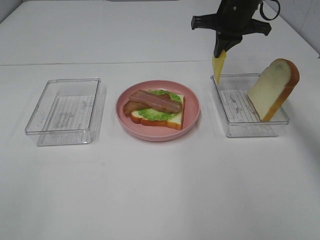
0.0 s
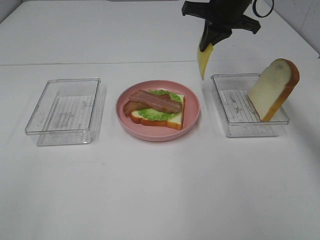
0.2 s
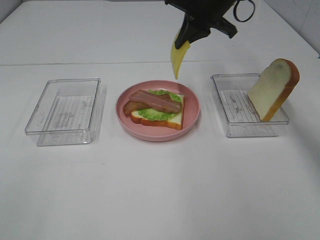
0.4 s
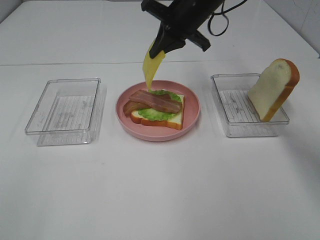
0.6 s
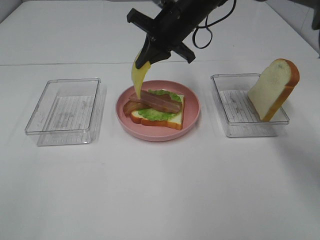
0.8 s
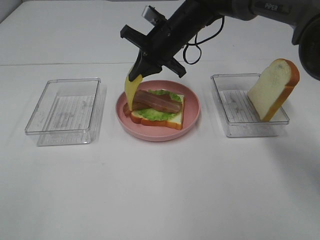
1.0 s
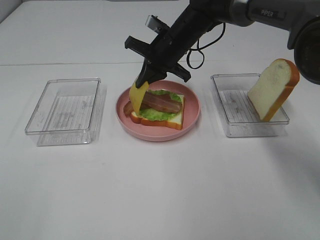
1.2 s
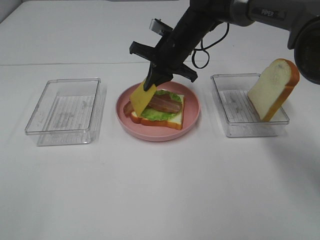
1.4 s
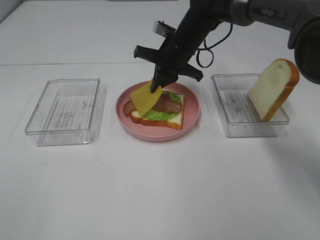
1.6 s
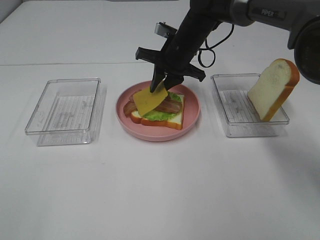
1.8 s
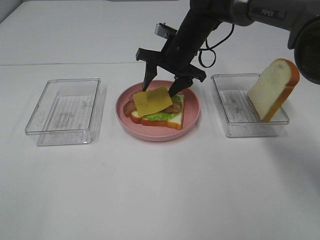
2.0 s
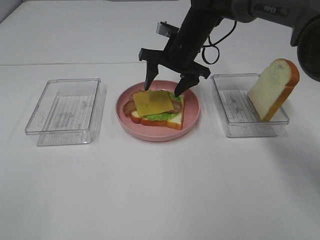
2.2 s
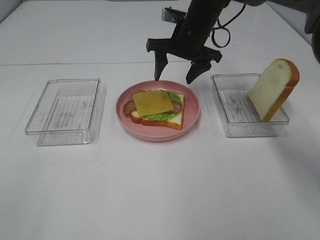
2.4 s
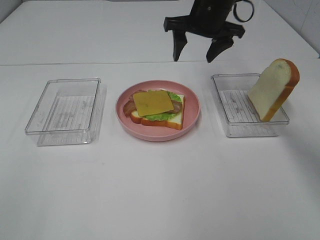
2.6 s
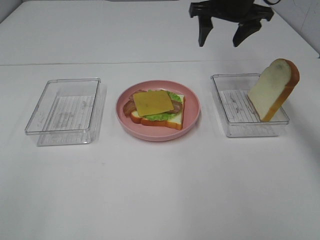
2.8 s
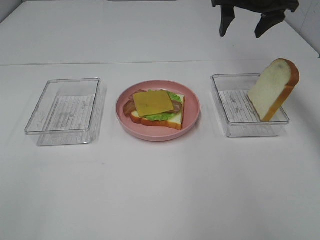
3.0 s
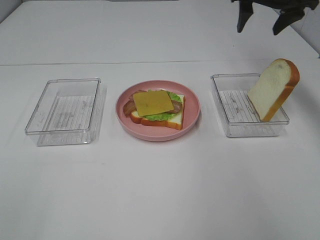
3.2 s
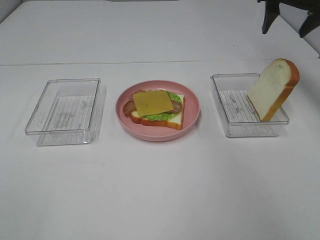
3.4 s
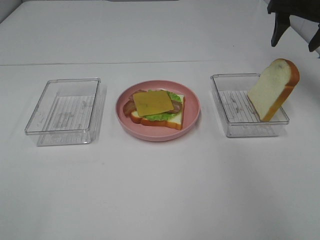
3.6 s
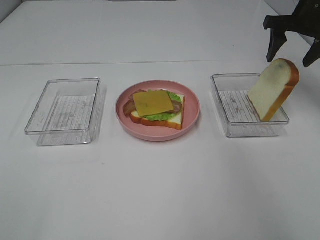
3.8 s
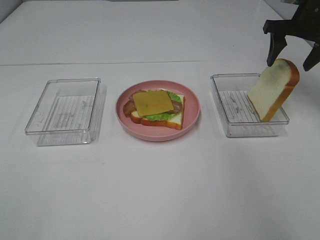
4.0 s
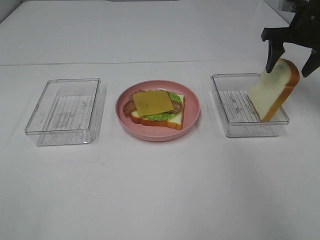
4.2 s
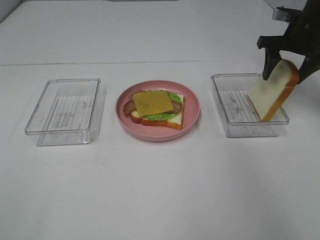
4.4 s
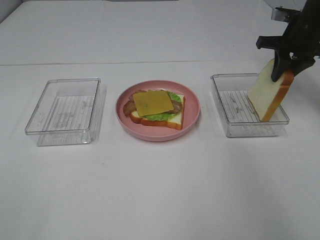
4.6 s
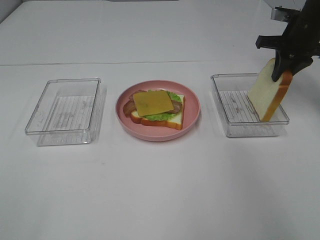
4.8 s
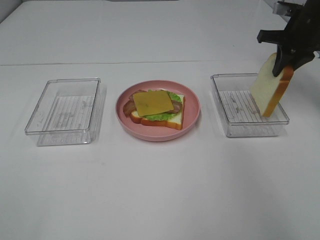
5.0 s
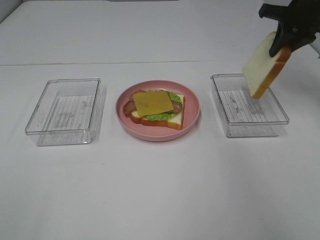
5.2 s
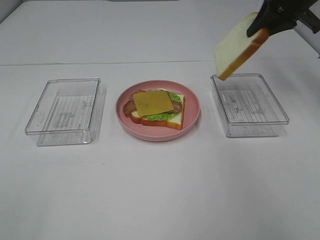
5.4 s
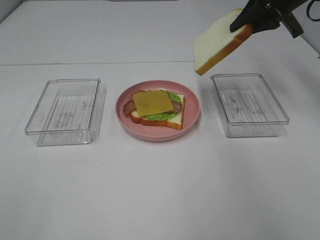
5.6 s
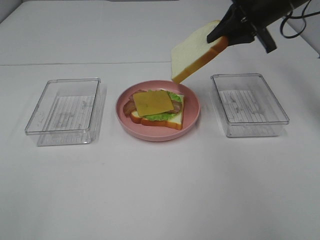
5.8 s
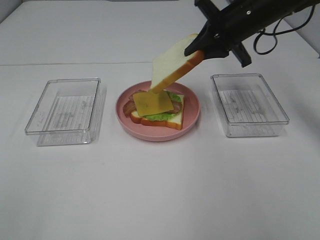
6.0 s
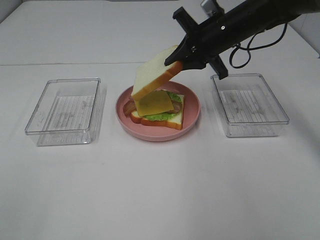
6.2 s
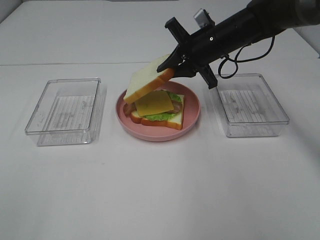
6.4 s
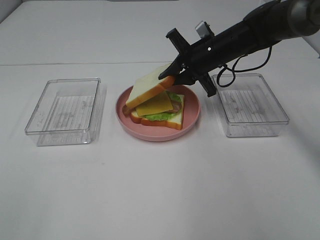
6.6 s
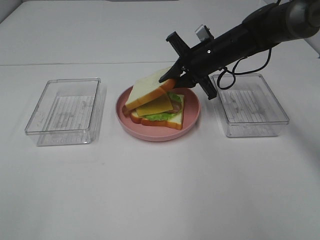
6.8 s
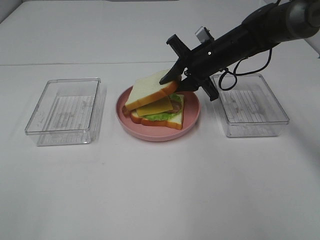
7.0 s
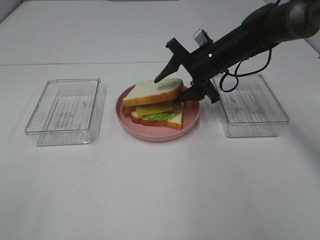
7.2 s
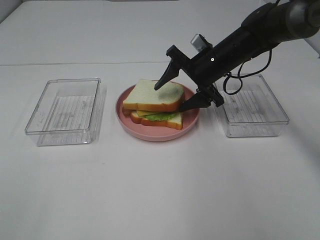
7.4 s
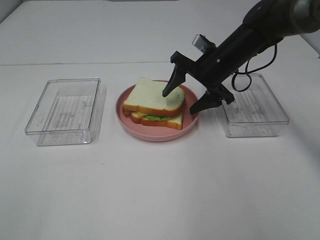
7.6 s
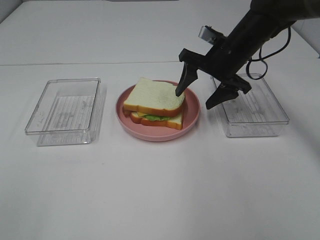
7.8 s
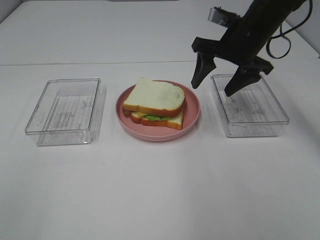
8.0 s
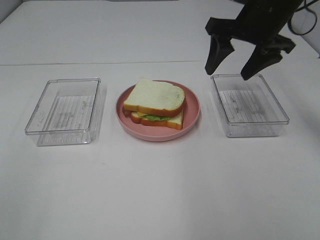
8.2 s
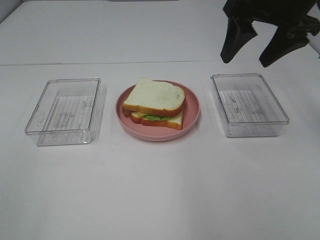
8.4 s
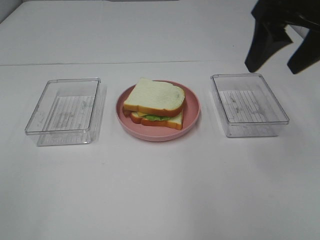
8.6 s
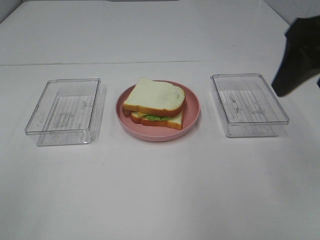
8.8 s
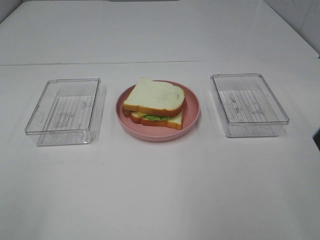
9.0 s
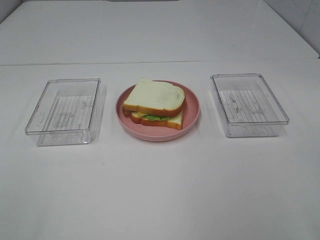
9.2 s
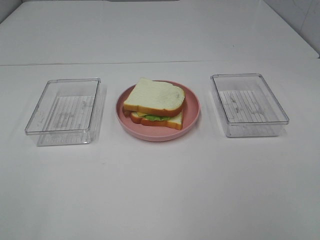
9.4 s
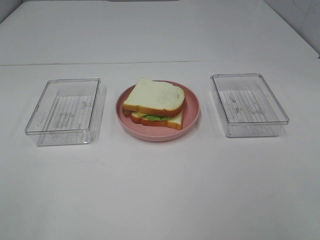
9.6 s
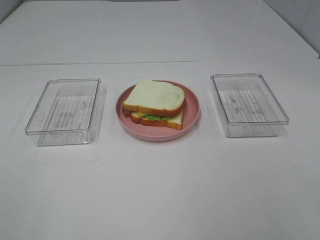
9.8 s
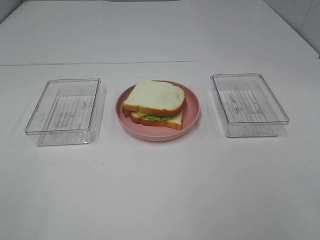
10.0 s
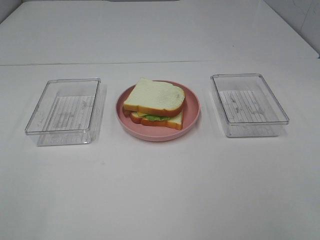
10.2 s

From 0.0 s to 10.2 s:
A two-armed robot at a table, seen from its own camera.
Task of the whole recording: Make sandwiches.
Step, from 0.0 s to 2.2 s: Right hand:place the cheese slice on top of the bacon.
Step, from 2.4 s to 5.0 s: Right hand:grab the bread slice.
Step, from 5.2 s to 7.8 s: Right hand:place the bread slice on the cheese slice.
From 0.0 s to 1.4 s: The right gripper moves to the left and downward, approximately 15 cm.
From 1.4 s to 3.0 s: The right gripper shifts approximately 20 cm to the right and upward, and opens.
From 3.0 s to 4.4 s: The right gripper moves to the right and downward, roughly 15 cm.
From 4.4 s to 5.8 s: The right gripper shifts roughly 10 cm to the left, and closes its fingers.
From 5.8 s to 7.2 s: The right gripper heads downward and to the left, covering approximately 15 cm, and opens up.
From 7.2 s to 8.8 s: The right gripper shifts roughly 30 cm backward, upward and to the right.
From 8.8 s to 10.2 s: The right gripper goes roughly 25 cm backward.

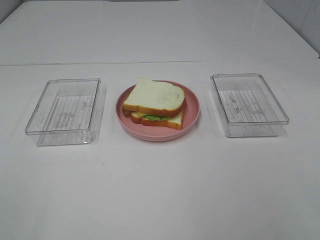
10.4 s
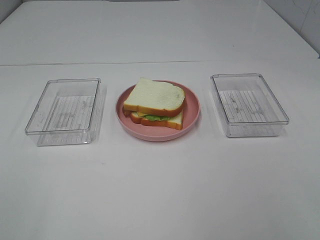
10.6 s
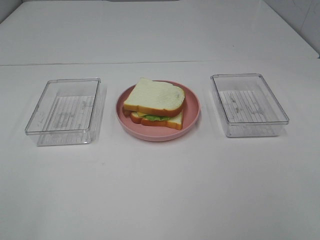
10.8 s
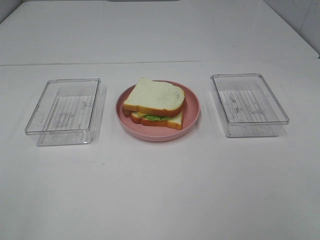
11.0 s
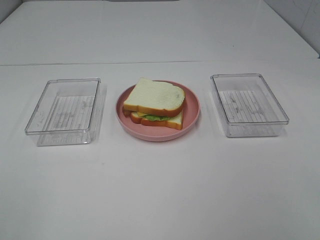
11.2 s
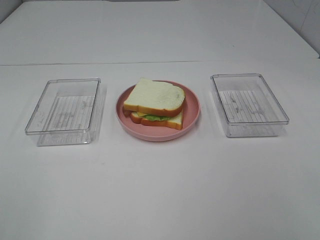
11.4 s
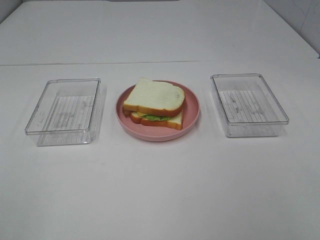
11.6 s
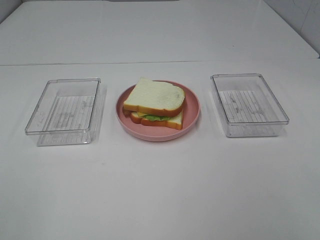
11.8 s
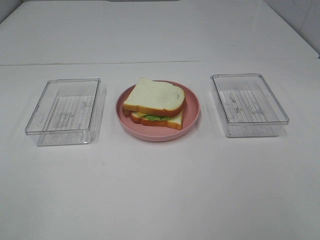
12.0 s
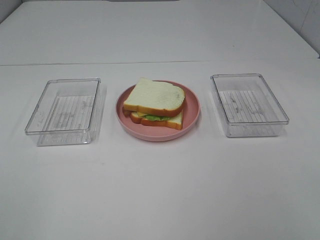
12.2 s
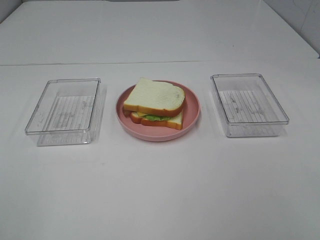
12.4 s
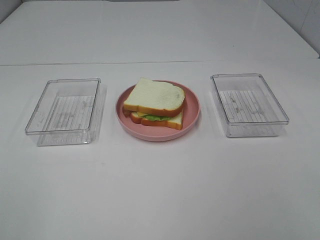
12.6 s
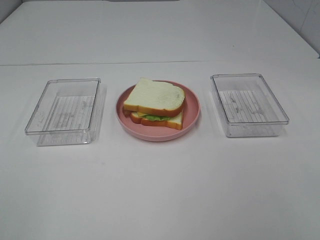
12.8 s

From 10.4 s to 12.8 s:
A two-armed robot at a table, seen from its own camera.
Task of the whole recording: Make sandwiches.
From 11.6 s to 12.8 s: Both grippers stay about where they are.

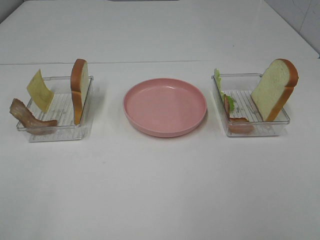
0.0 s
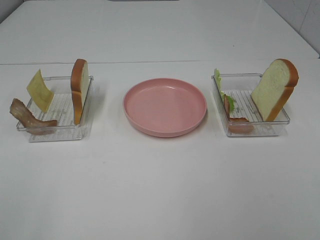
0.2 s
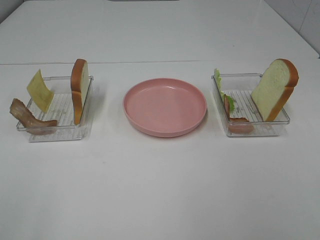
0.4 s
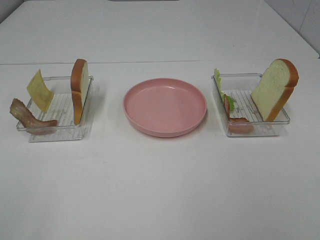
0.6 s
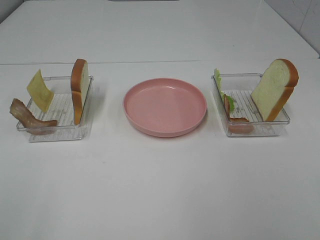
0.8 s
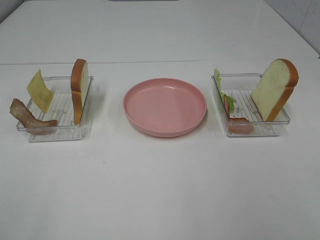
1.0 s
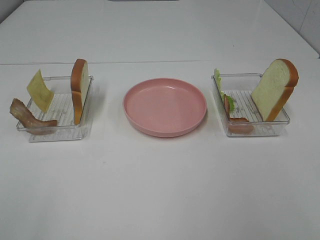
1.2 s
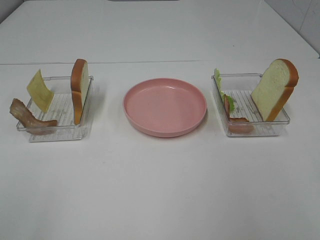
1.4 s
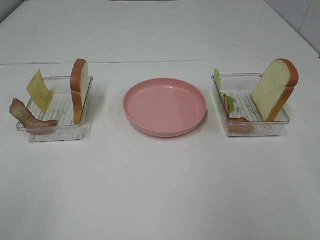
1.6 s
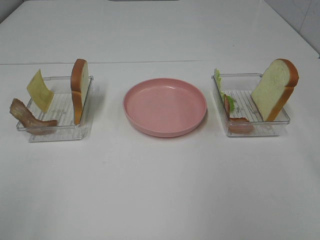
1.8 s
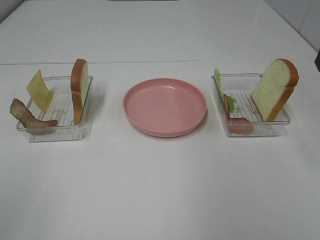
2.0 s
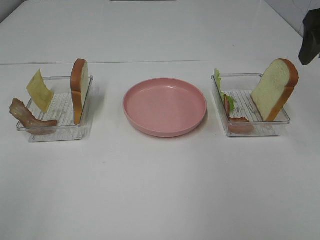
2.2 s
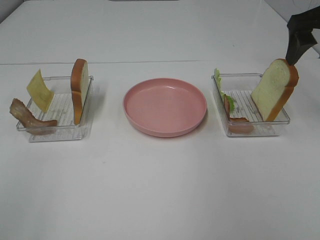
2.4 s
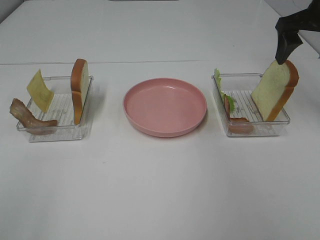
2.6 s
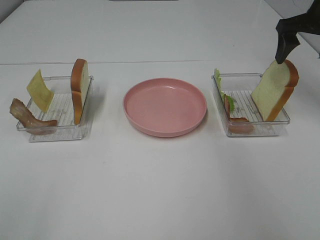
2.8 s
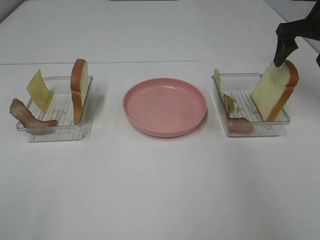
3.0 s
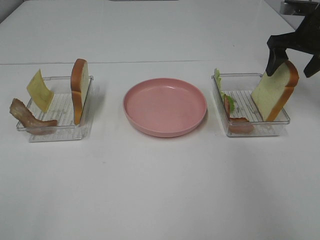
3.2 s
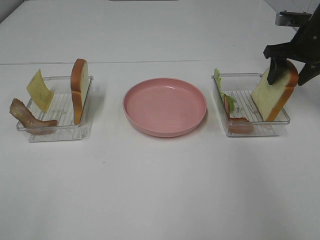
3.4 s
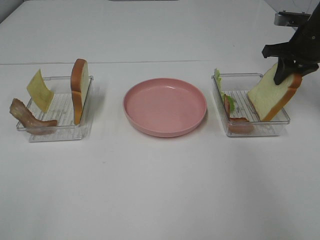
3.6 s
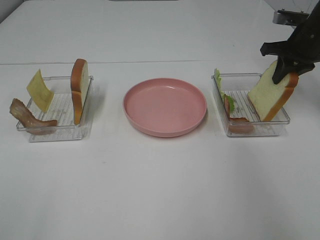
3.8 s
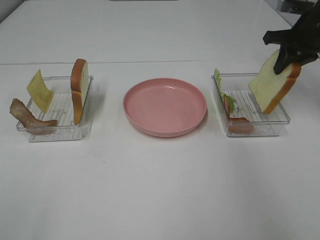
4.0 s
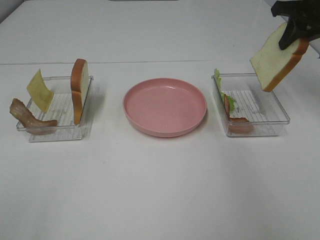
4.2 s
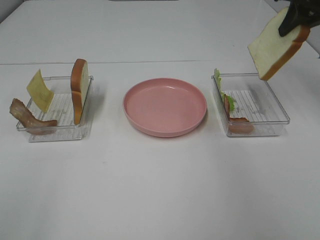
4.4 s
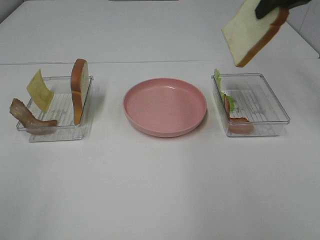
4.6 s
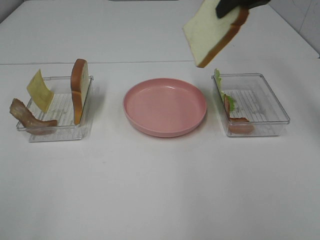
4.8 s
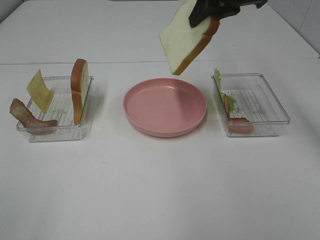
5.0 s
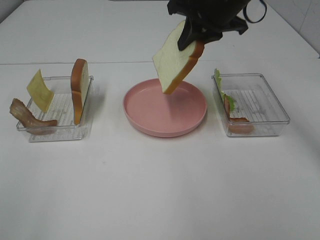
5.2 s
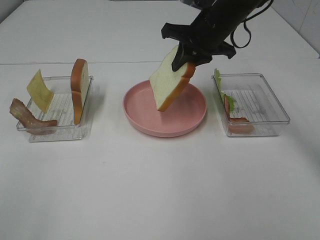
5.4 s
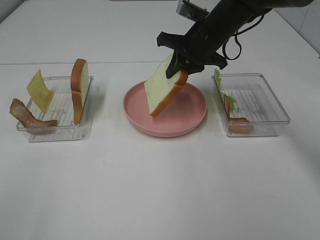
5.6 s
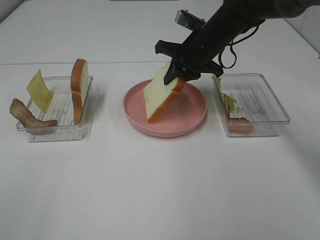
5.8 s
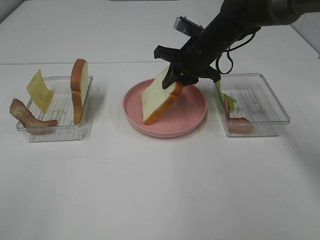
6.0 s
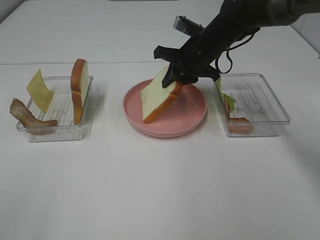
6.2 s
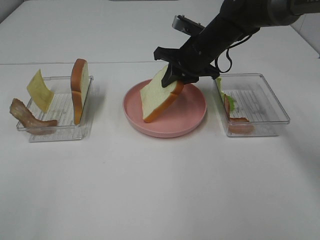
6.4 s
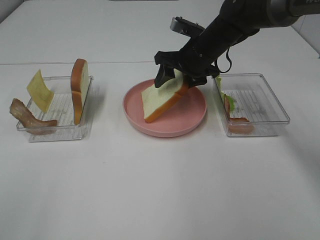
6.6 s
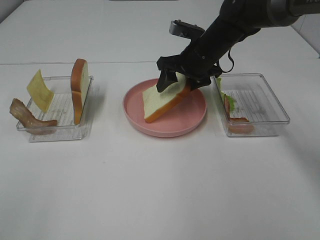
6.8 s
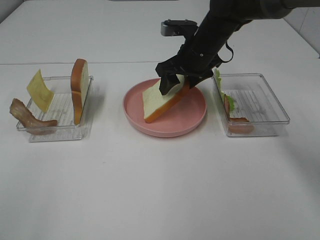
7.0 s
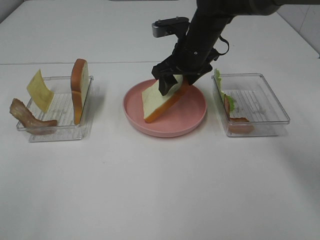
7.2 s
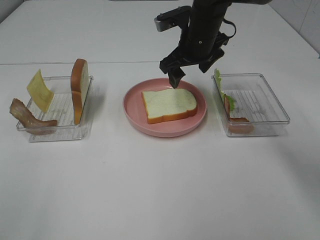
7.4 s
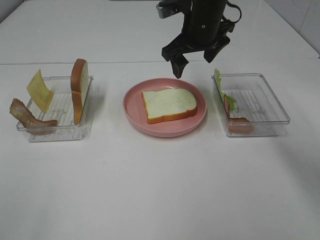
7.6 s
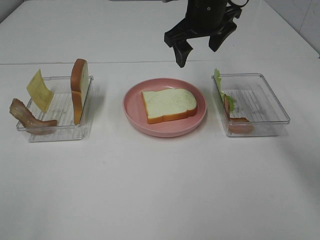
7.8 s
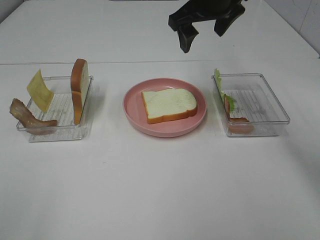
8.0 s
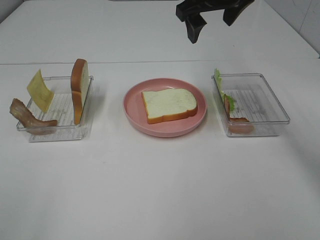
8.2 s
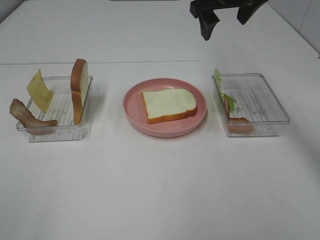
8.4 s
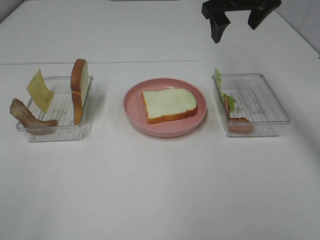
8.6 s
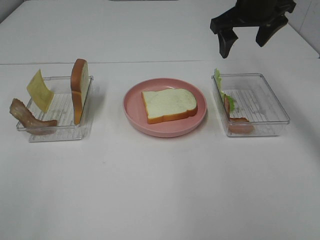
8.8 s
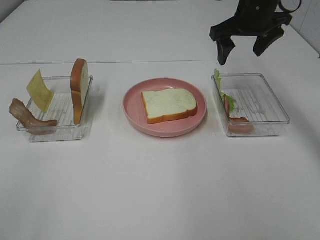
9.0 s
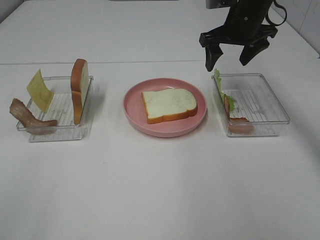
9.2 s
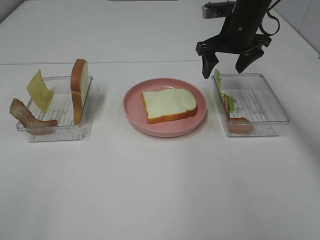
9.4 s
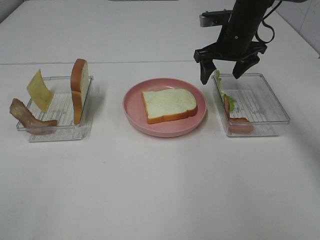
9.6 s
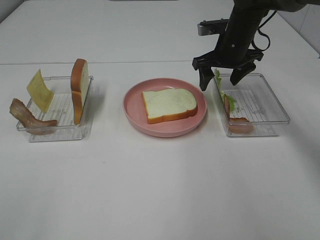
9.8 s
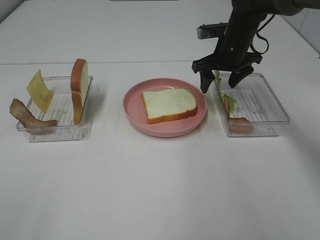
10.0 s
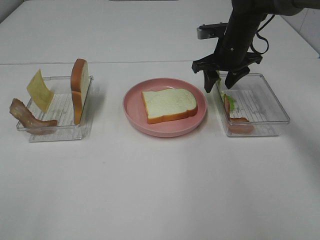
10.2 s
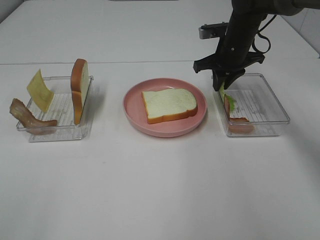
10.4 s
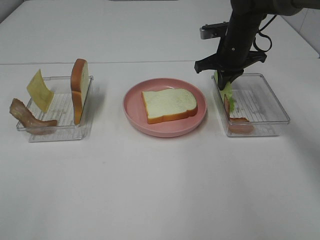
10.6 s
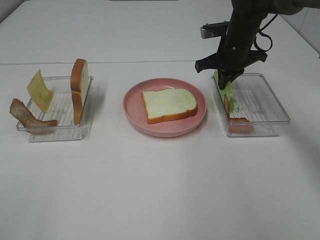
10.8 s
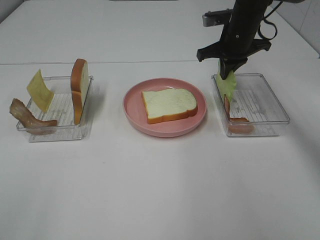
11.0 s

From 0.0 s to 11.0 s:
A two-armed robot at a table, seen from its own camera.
Task of the whole recording: Make sandwiches.
Step, from 0.0 s to 3.6 s: Right hand:grab the bread slice.
Step, from 3.8 s to 7.6 s: Right hand:place the bread slice on the plate.
Step, from 7.8 s to 10.6 s: Right hand:grab the lettuce slice.
From 1.6 s to 3.2 s: The right gripper goes approximately 30 cm forward and downward.
From 3.2 s to 4.8 s: The right gripper travels to the left and upward by approximately 20 cm, and closes its fingers.
From 4.8 s to 6.2 s: The right gripper is displaced downward by some 20 cm.
From 6.2 s to 7.8 s: The right gripper is displaced upward by about 10 cm, and opens.
From 7.8 s to 9.4 s: The right gripper goes approximately 10 cm to the right and downward.
From 9.4 s to 11.0 s: The right gripper closes.
